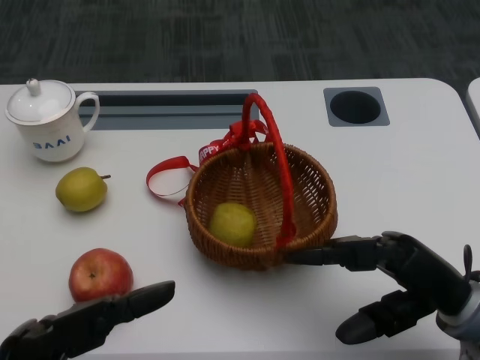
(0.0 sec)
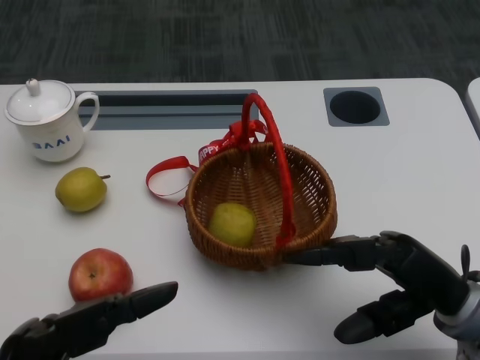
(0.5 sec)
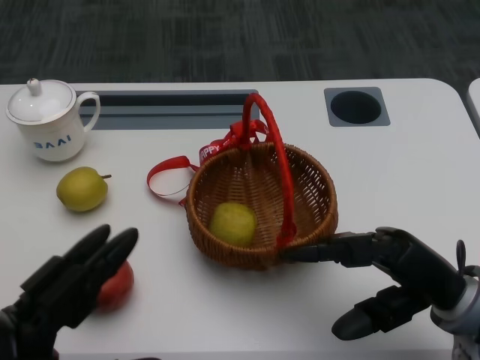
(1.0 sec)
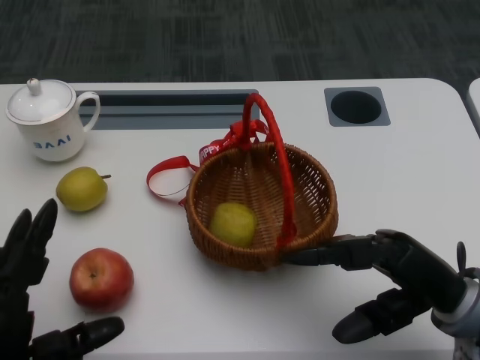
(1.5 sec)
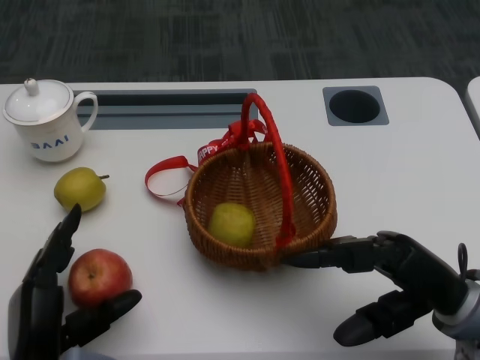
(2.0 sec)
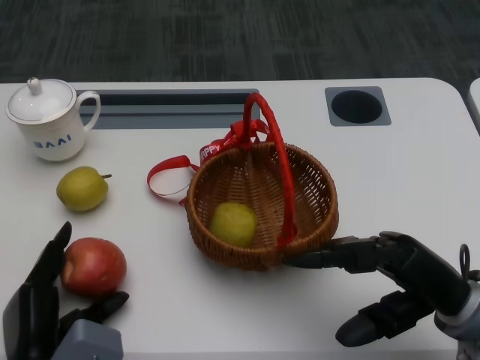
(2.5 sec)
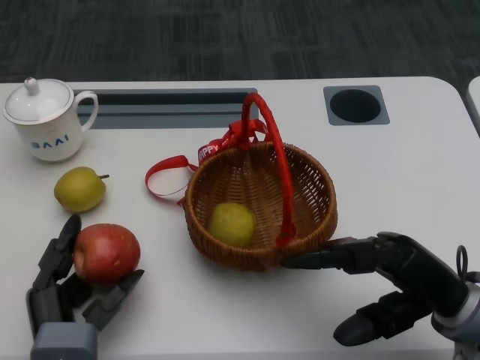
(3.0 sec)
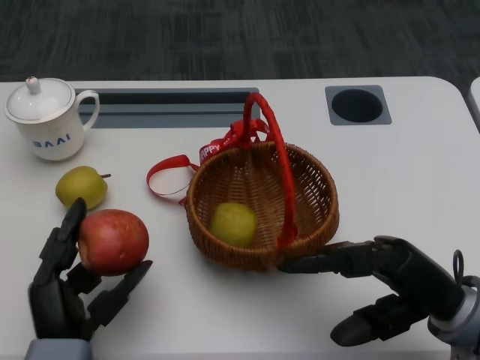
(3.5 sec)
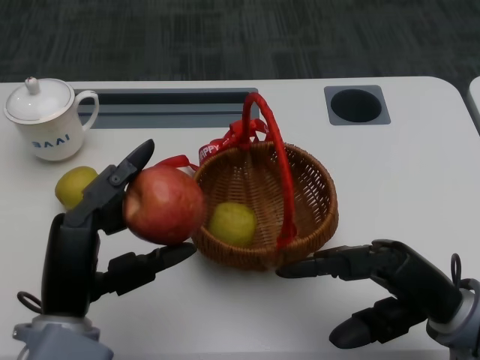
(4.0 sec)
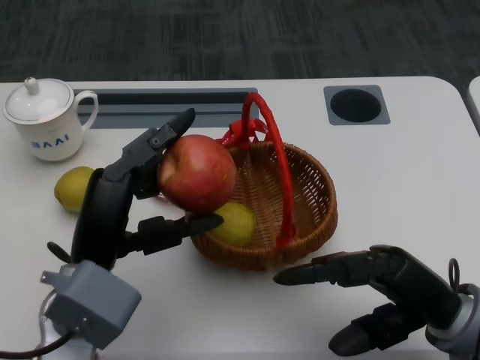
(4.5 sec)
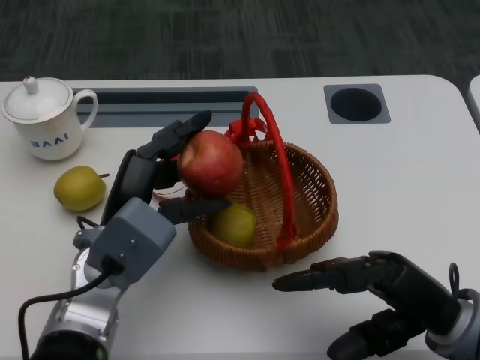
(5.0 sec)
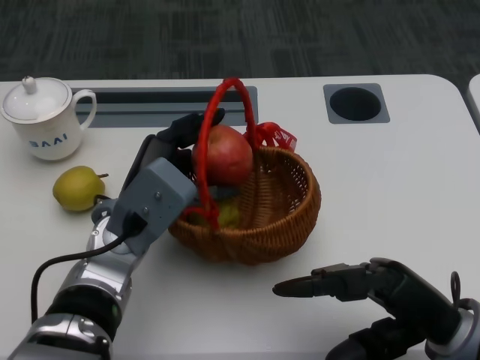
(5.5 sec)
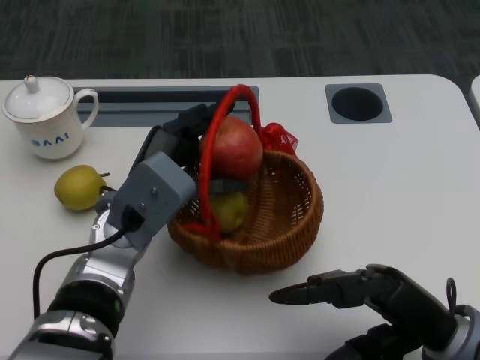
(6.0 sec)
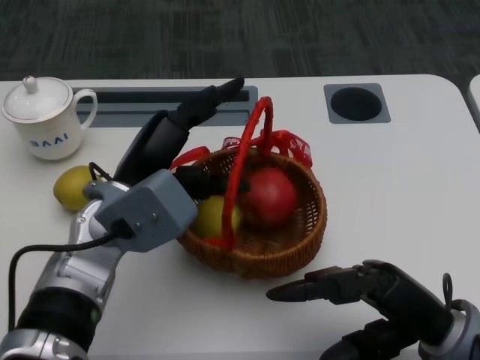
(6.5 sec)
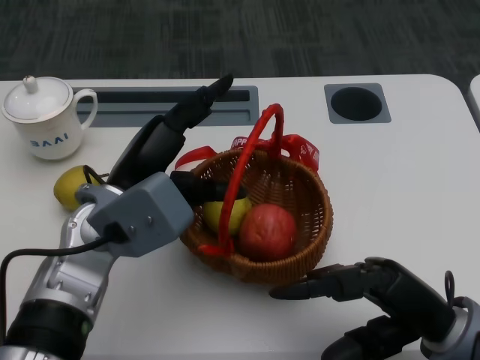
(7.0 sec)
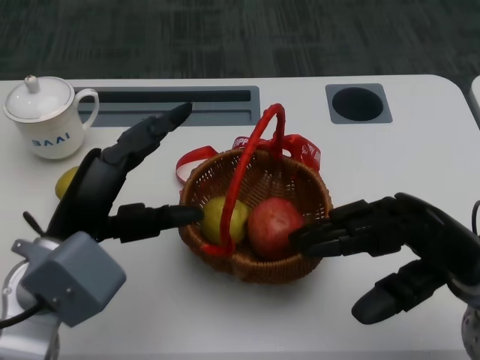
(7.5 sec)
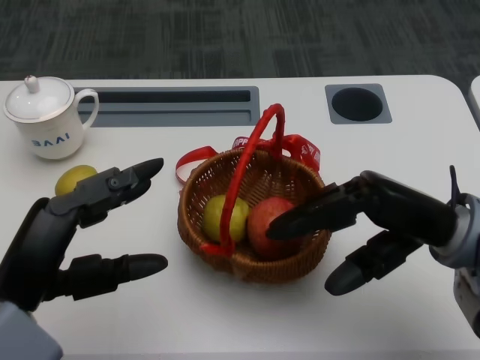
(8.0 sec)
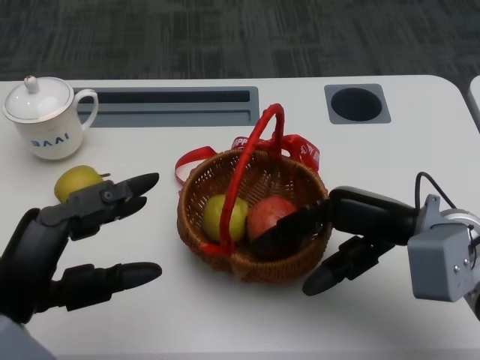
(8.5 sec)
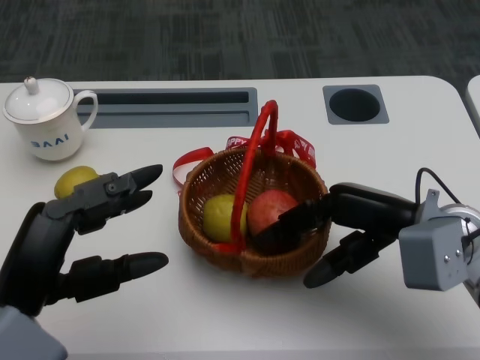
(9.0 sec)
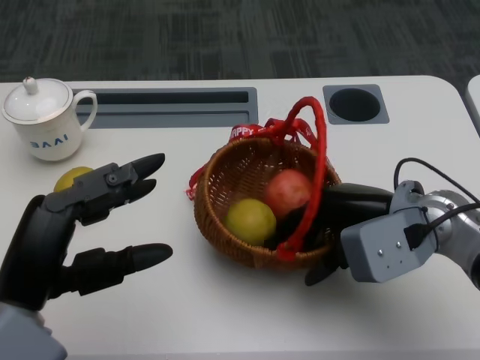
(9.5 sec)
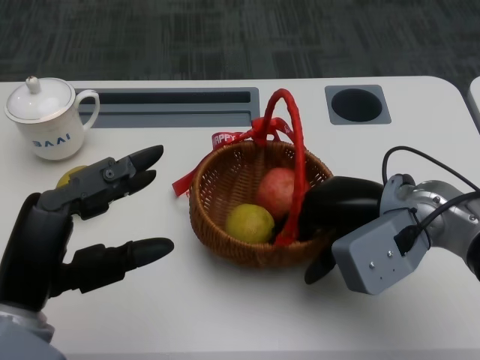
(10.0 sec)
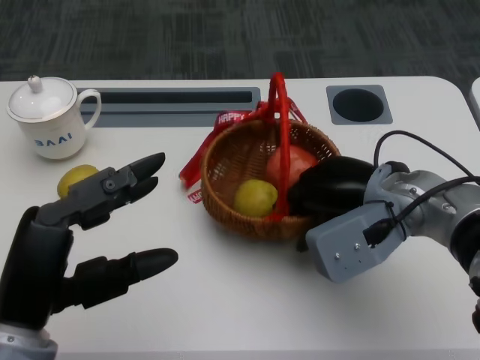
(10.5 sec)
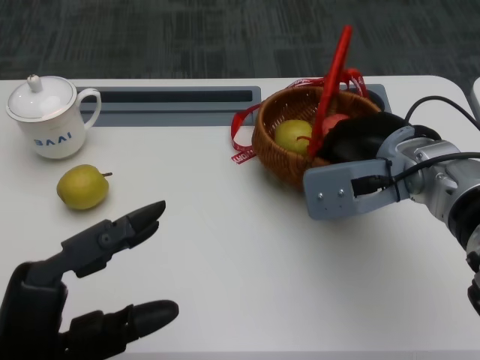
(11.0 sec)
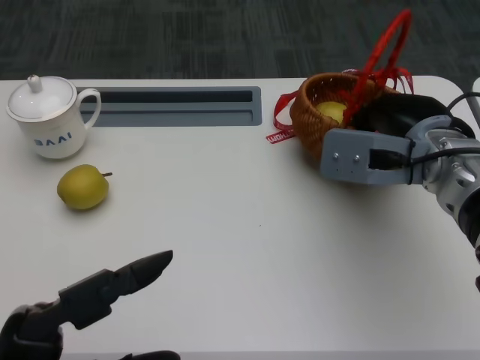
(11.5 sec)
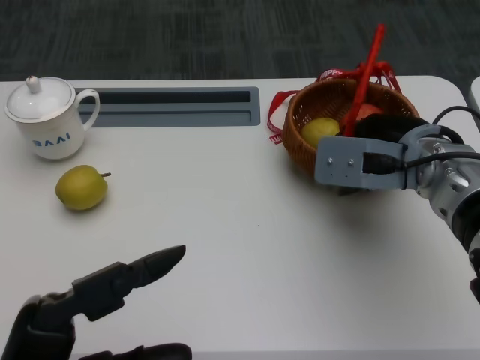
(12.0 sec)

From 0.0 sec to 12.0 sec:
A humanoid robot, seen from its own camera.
Step, from 1.0 sec to 2.0 sec: Grasp the apple with the left gripper.
Step, from 3.0 sec to 5.0 sec: Place the apple into the basket with the left gripper.
Step, from 5.5 sec to 8.0 sec: Grasp the basket with the right gripper.
Step, from 8.5 sec to 10.0 sec: Move the basket to the front of the table with the right gripper.
From 2.0 sec to 4.0 sec: The left hand goes roughly 10 cm upward.
From 4.0 sec to 6.0 sec: The left hand goes roughly 15 cm forward and to the right.
From 6.0 sec to 8.0 sec: The left hand moves backward and to the left, roughly 15 cm. Meanwhile the right hand travels forward and upward by about 10 cm.
From 8.0 sec to 10.0 sec: The right hand moves roughly 5 cm.
From 10.0 sec to 12.0 sec: The left hand is displaced backward by some 10 cm.

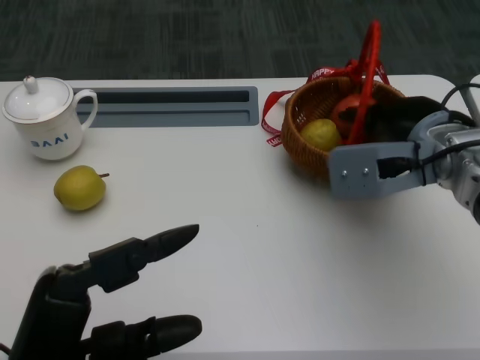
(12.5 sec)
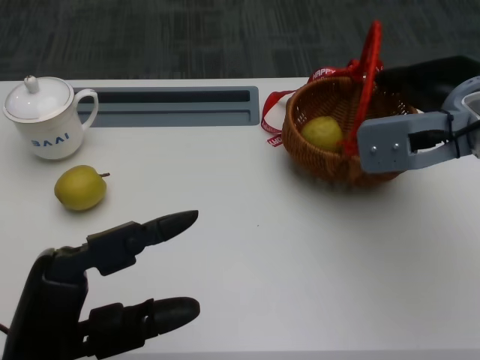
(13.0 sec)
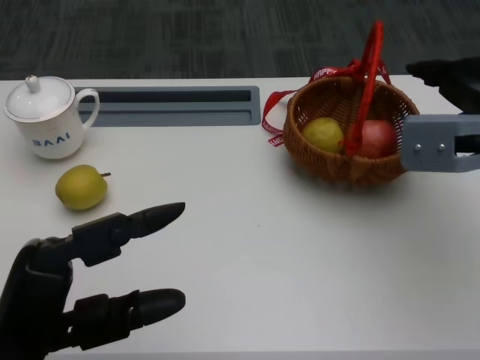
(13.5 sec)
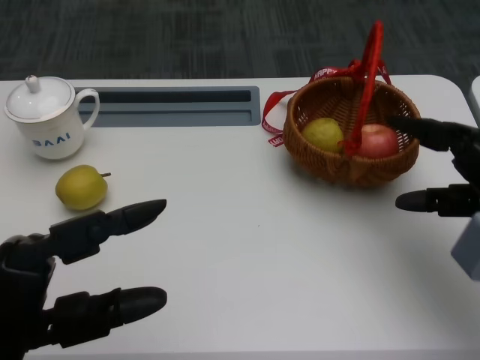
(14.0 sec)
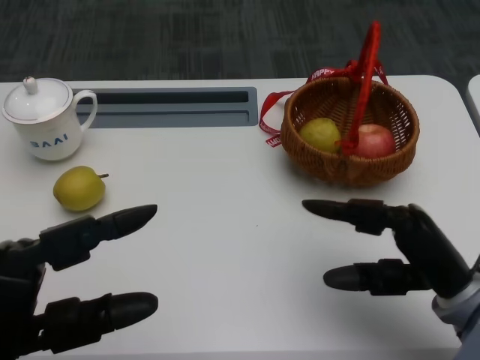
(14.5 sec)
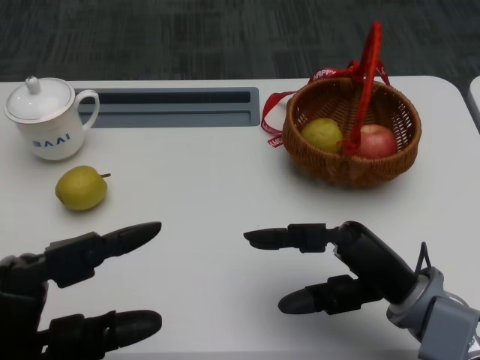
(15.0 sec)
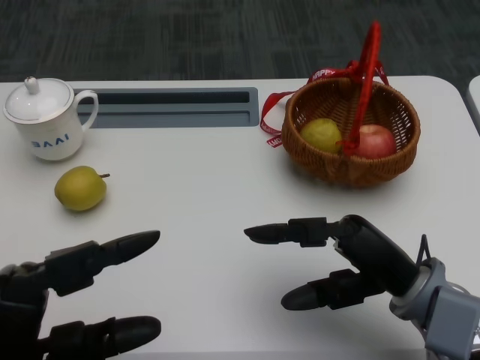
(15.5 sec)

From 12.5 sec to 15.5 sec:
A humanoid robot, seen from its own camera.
From 12.5 sec to 14.0 sec: The right hand heads to the right and backward, covering roughly 10 cm.
From 14.0 sec to 15.5 sec: The right hand moves to the left and backward, approximately 10 cm.

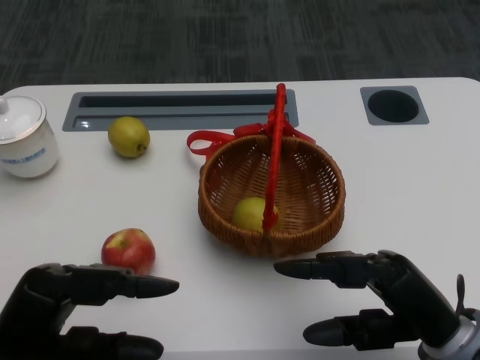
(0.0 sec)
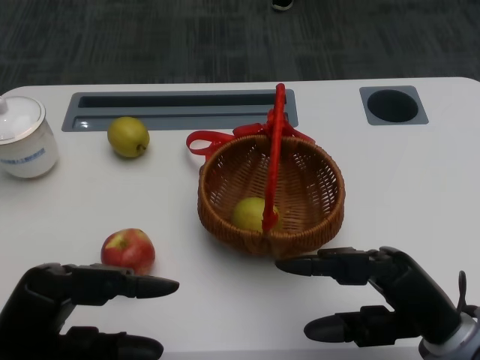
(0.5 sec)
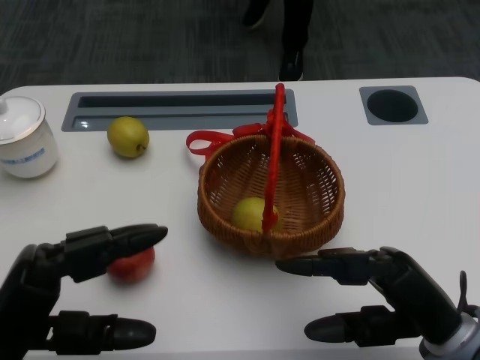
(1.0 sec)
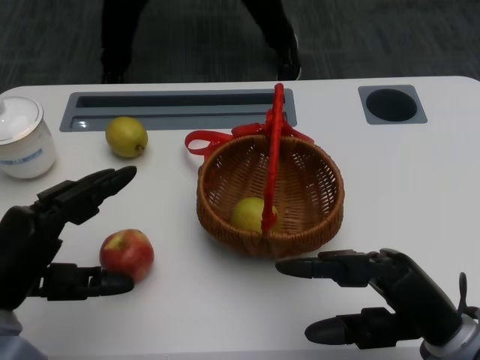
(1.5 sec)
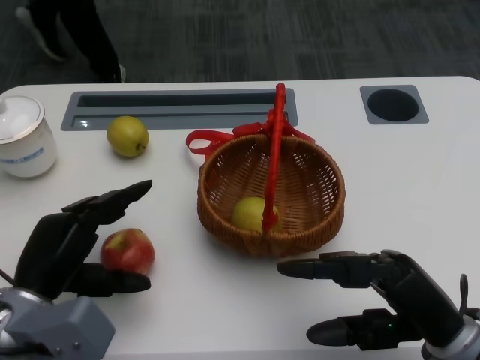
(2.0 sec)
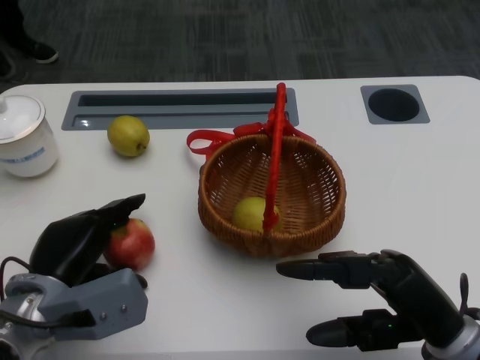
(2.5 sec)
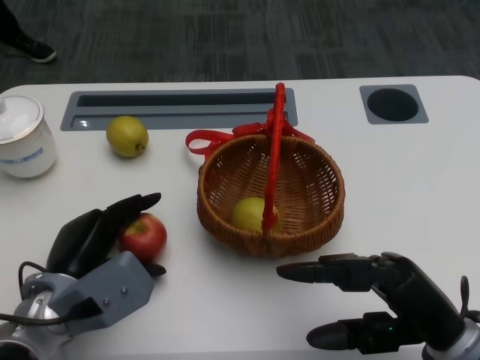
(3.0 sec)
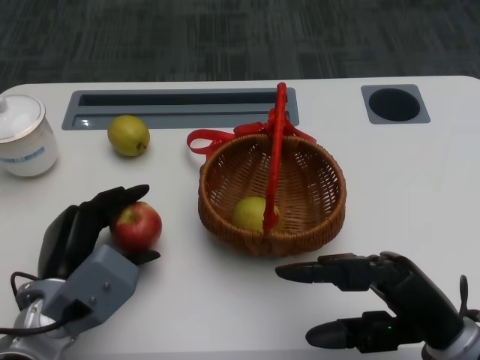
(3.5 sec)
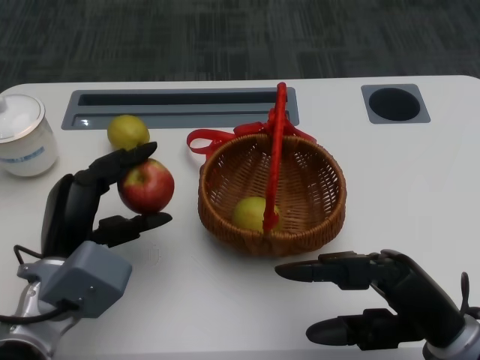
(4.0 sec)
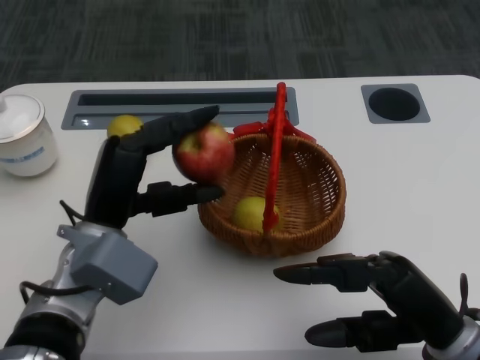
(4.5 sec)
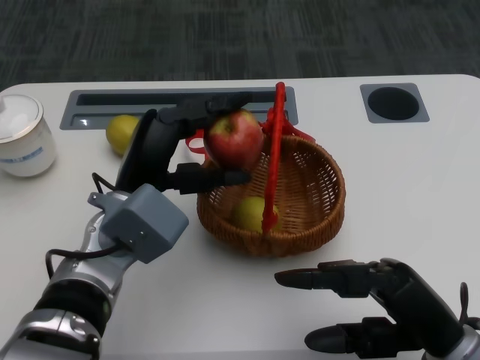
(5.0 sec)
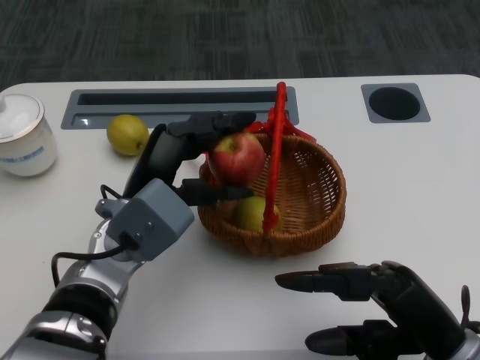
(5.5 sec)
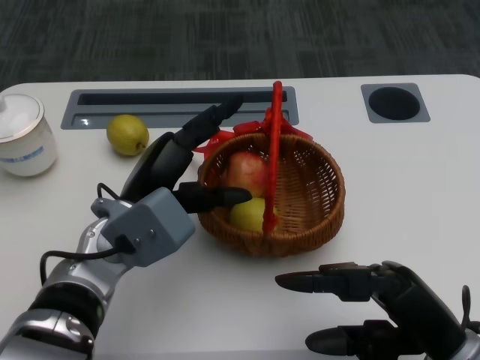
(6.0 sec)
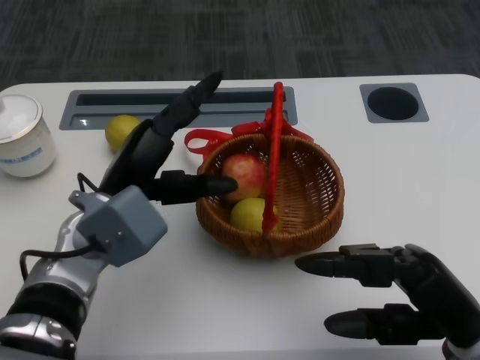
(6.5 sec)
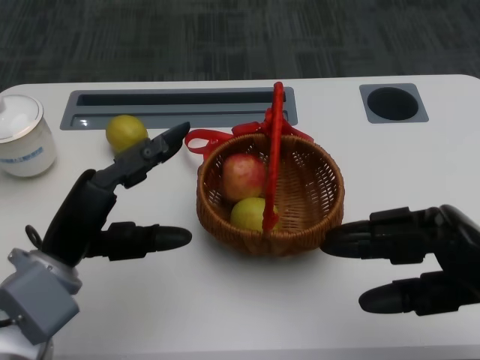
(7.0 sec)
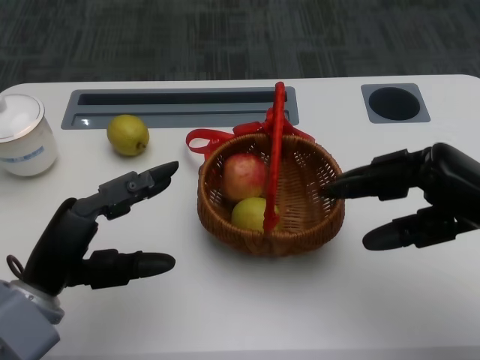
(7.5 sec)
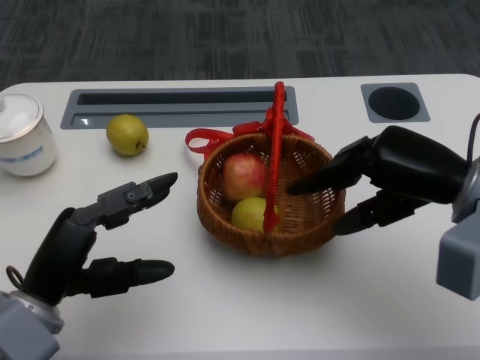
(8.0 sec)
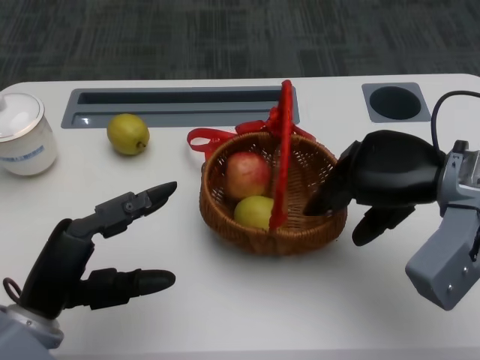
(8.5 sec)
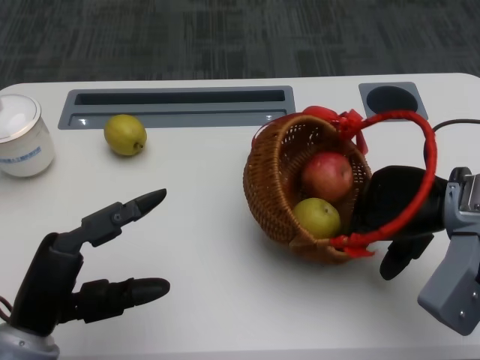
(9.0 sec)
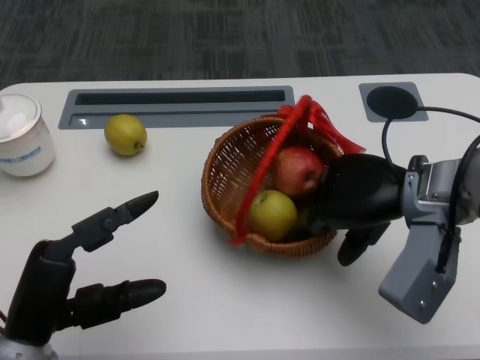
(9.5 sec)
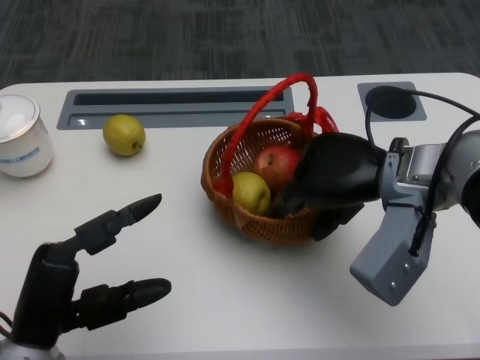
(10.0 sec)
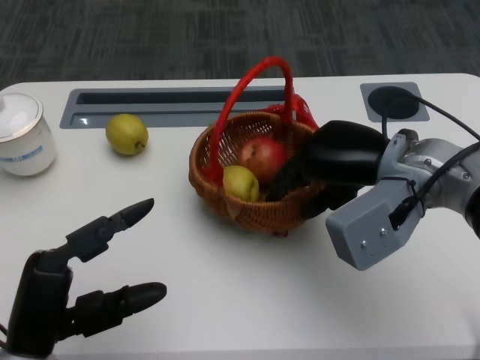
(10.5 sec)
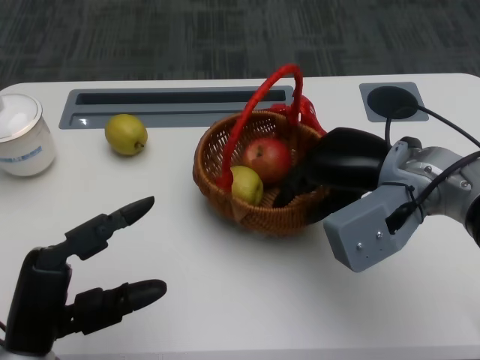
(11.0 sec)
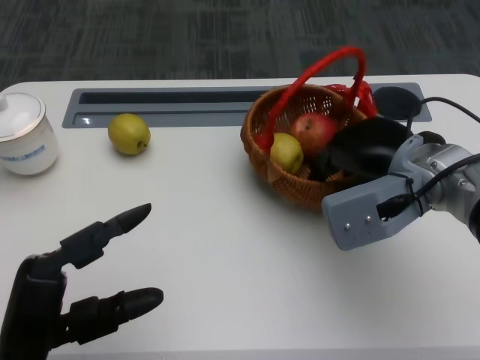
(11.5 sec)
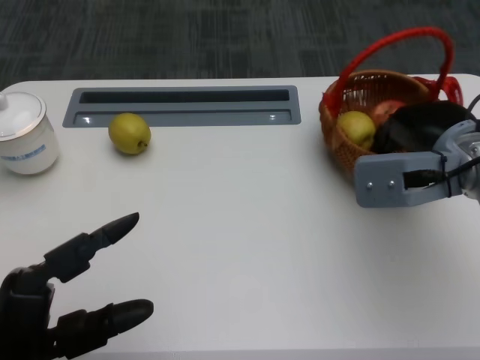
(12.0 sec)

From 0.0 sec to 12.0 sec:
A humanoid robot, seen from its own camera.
Step, from 1.0 sec to 2.0 sec: Grasp the apple with the left gripper.
Step, from 2.5 sec to 5.0 sec: Place the apple into the basket with the left gripper.
Step, from 5.5 sec to 8.0 sec: Grasp the basket with the right gripper.
Step, from 8.5 sec to 11.0 sec: Move the basket to the front of the table with the right gripper.
From 4.0 sec to 6.0 sec: The left hand goes approximately 5 cm to the right.
From 6.0 sec to 8.0 sec: The left hand travels to the left and backward by roughly 10 cm, while the right hand goes some 15 cm forward and upward.
From 8.0 sec to 10.0 sec: The right hand shifts some 5 cm to the left.
From 10.0 sec to 12.0 sec: The right hand goes approximately 5 cm to the right.
